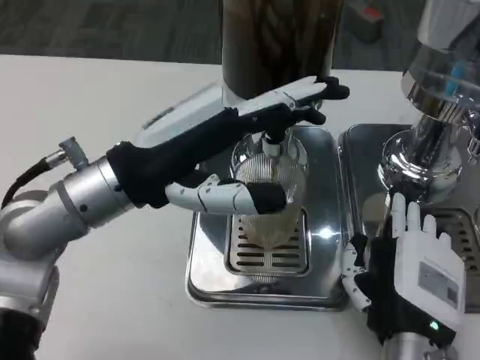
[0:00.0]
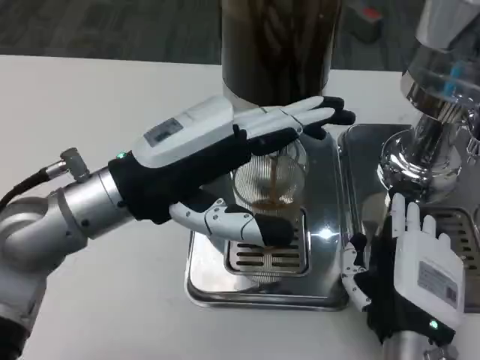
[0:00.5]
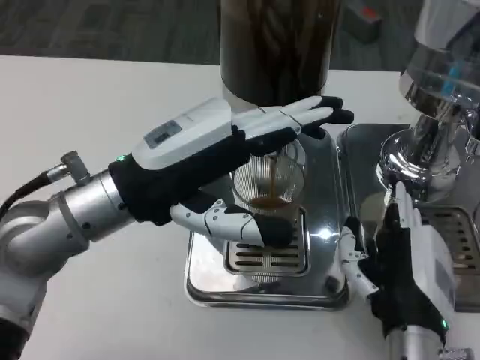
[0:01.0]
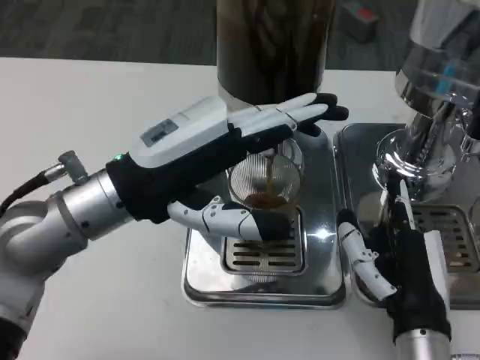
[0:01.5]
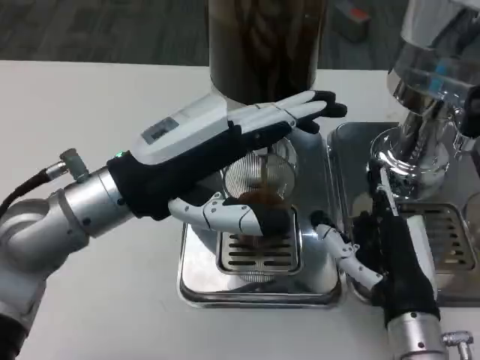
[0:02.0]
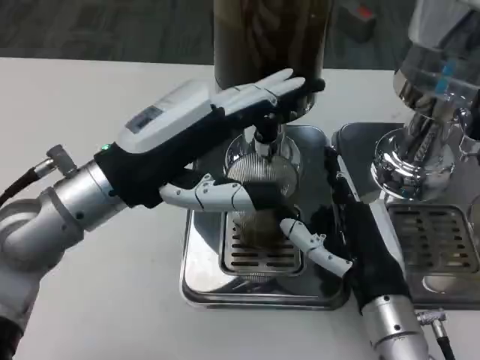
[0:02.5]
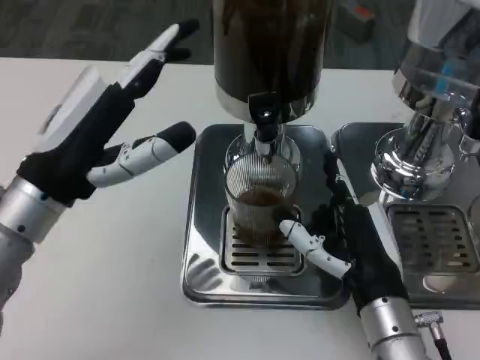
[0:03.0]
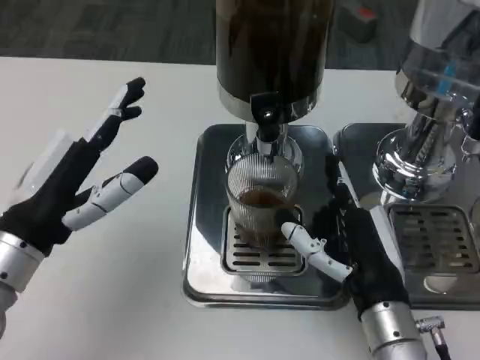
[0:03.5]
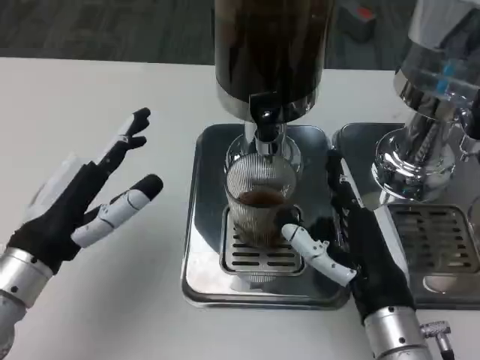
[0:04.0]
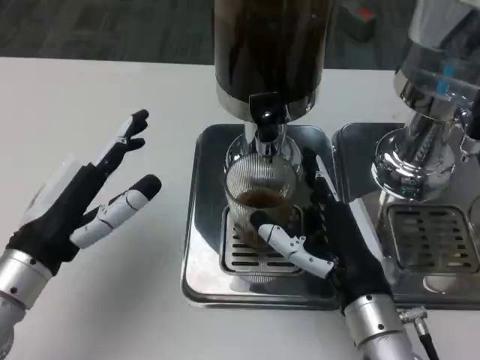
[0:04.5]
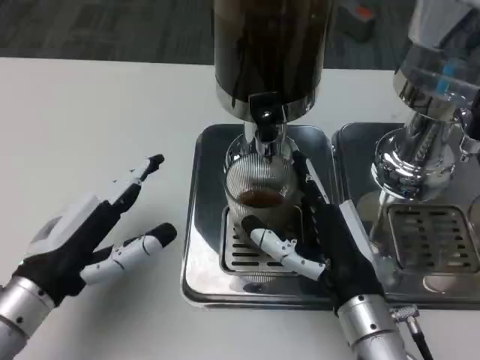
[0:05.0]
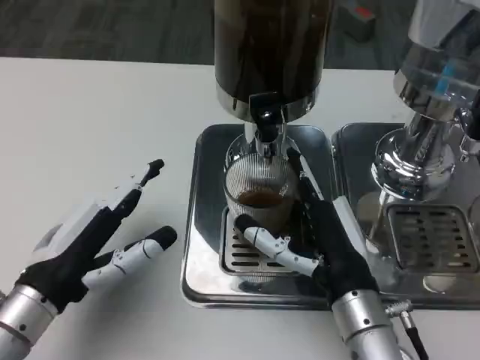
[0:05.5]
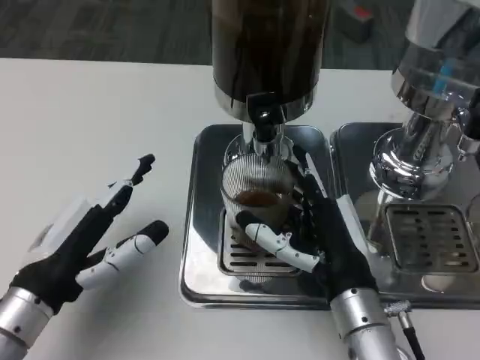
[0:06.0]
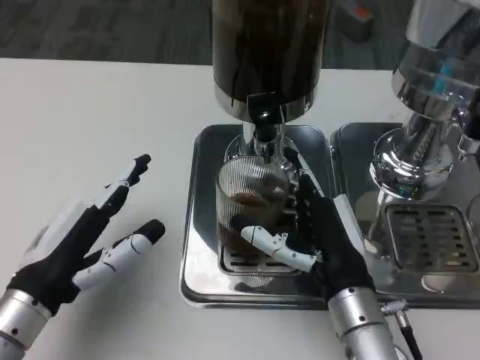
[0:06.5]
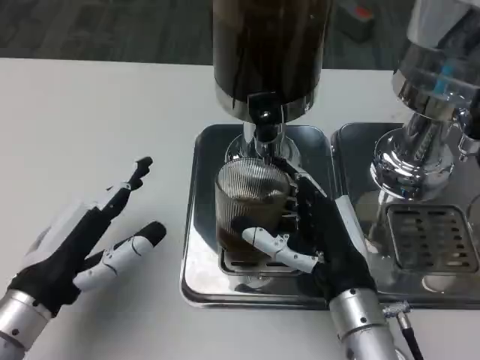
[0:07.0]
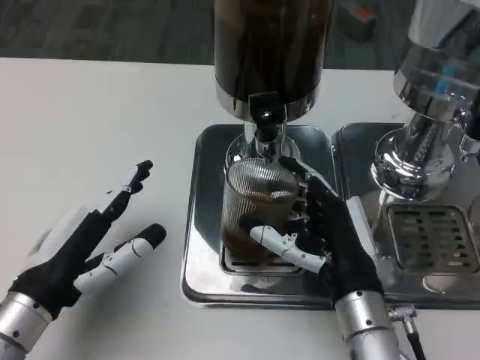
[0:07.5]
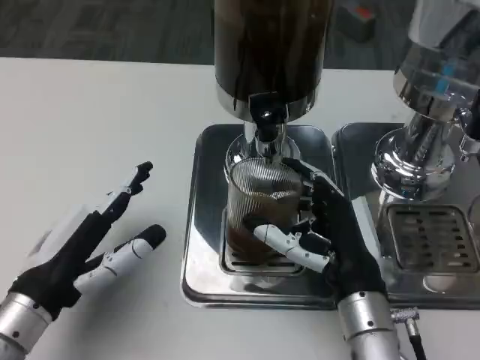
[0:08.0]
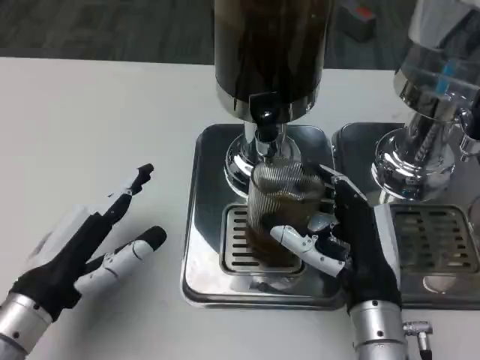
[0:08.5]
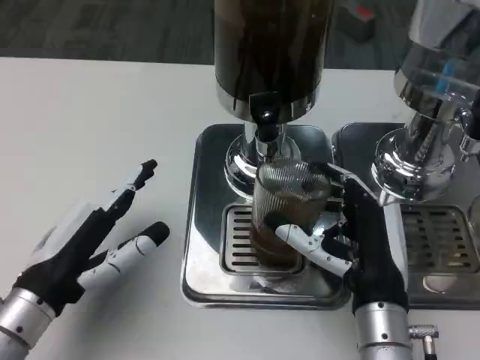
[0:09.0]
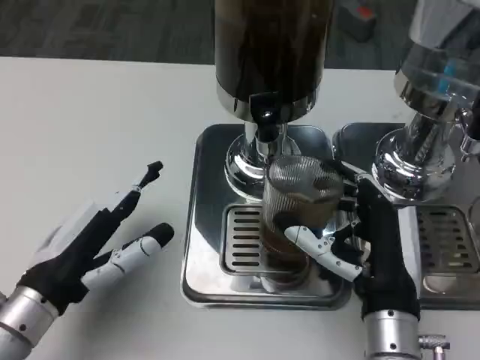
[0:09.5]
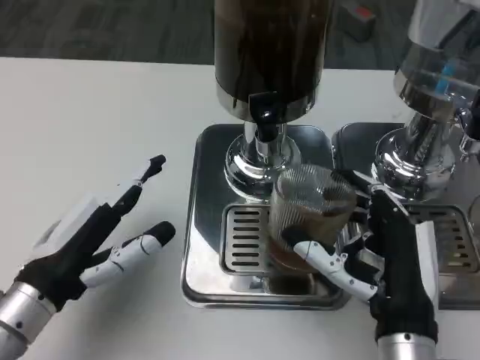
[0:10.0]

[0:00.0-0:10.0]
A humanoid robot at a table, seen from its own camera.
Task of the whole recording: Grasp the cup under the faucet to collect the drink, then remove the cup.
2.0 to 4.0 s: The left hand goes some 10 cm downward and to the left.
6.0 to 8.0 s: The hands stay close to where they were, moving slightly.
8.0 to 10.0 s: The right hand moves some 5 cm.

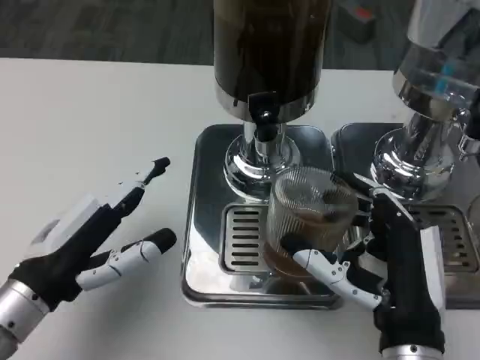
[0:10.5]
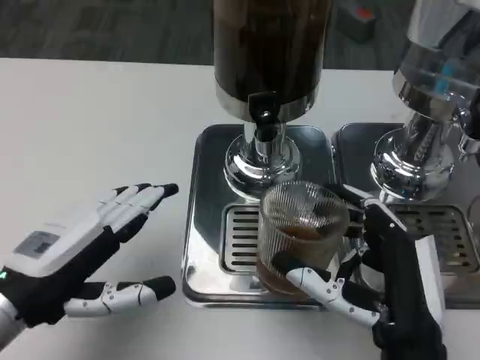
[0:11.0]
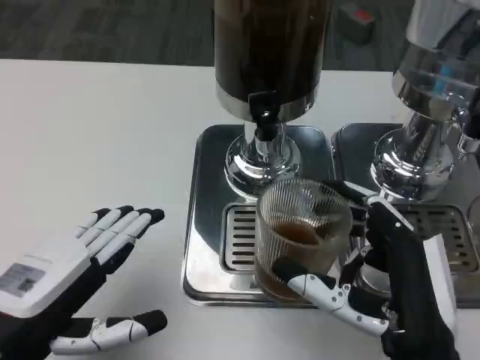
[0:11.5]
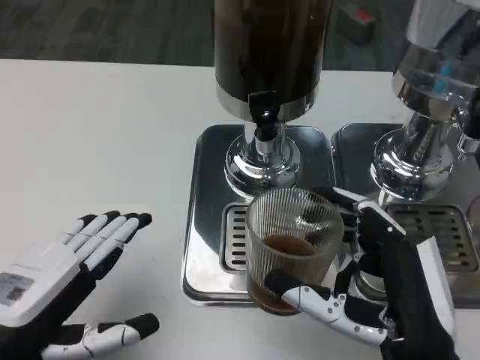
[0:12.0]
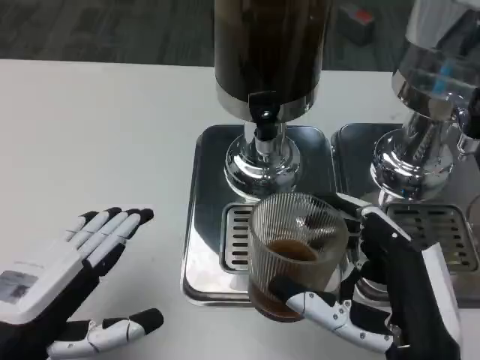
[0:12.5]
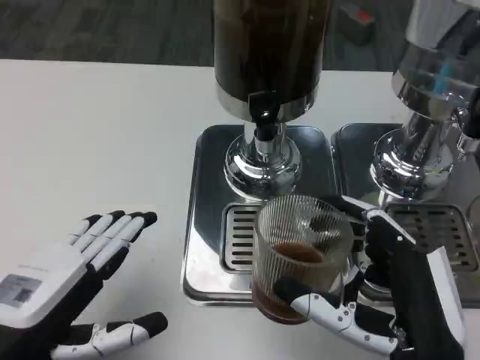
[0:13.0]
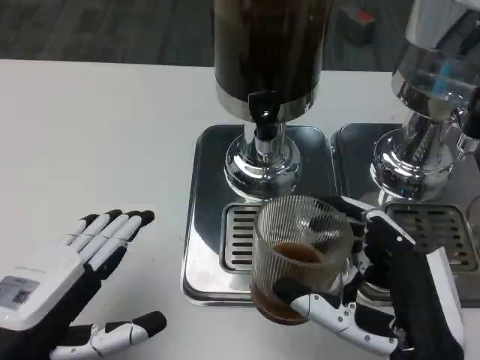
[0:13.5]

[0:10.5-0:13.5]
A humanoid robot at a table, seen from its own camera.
Task of the whole recording: Grasp the cup under the faucet to collect the drink, then remove the cup.
10.5 to 12.0 s: The left hand goes approximately 5 cm backward.
12.0 to 13.5 s: The two hands keep their place.

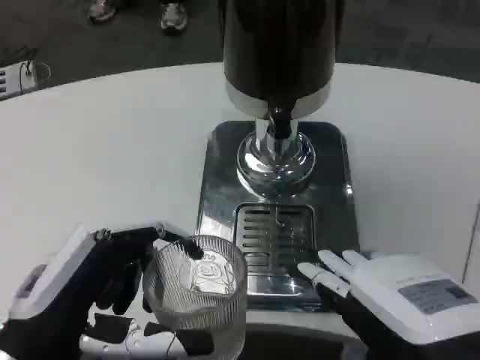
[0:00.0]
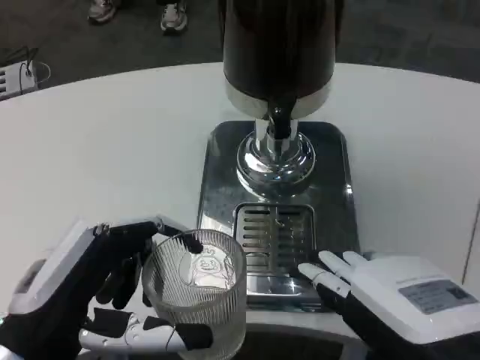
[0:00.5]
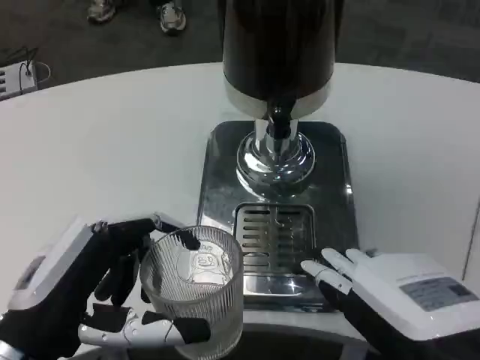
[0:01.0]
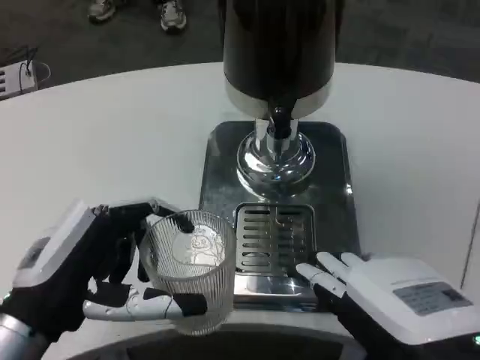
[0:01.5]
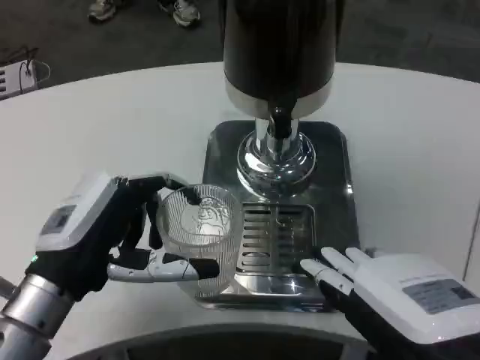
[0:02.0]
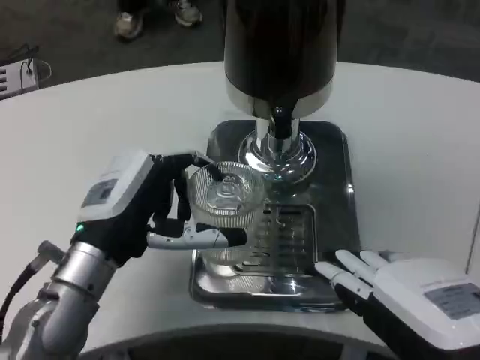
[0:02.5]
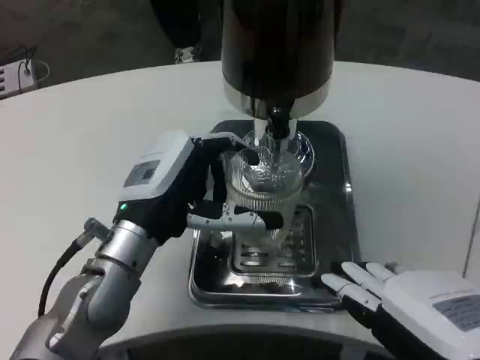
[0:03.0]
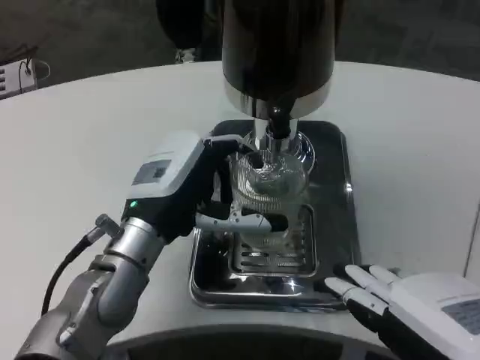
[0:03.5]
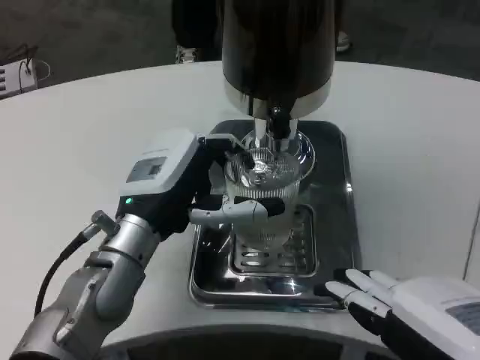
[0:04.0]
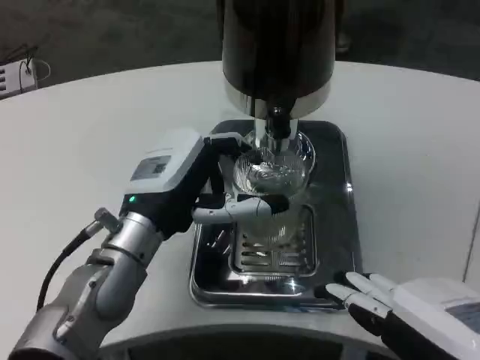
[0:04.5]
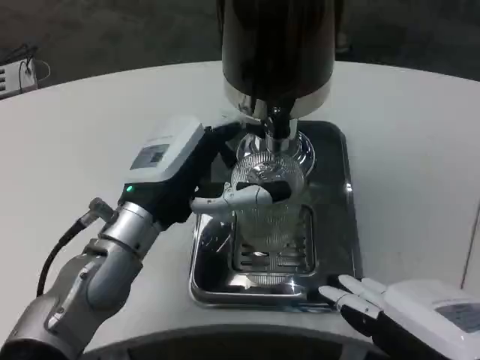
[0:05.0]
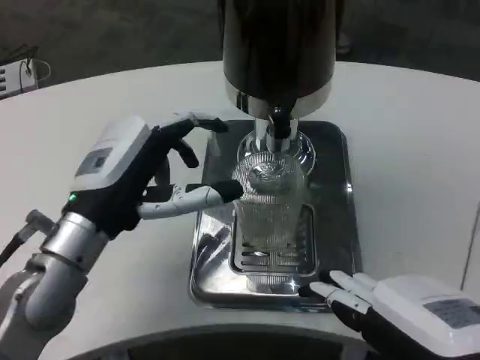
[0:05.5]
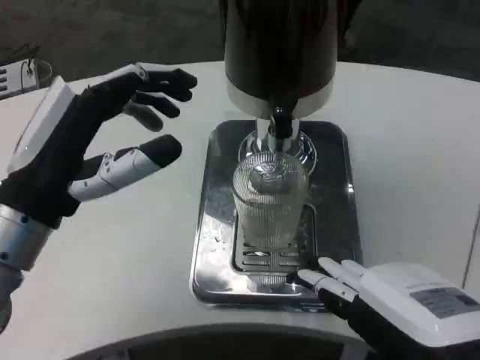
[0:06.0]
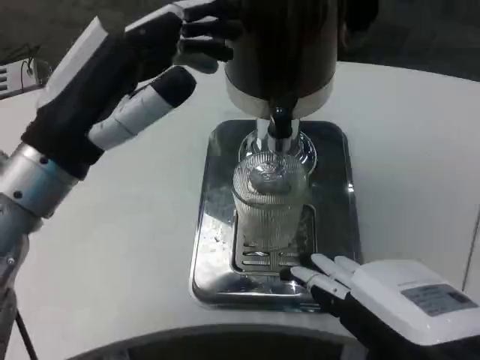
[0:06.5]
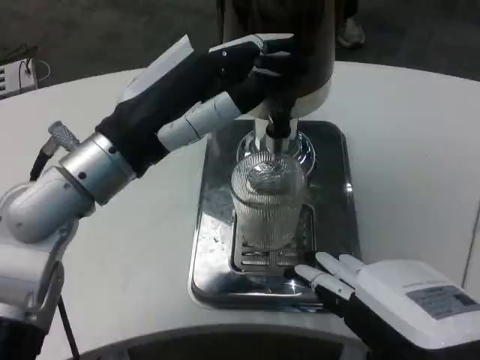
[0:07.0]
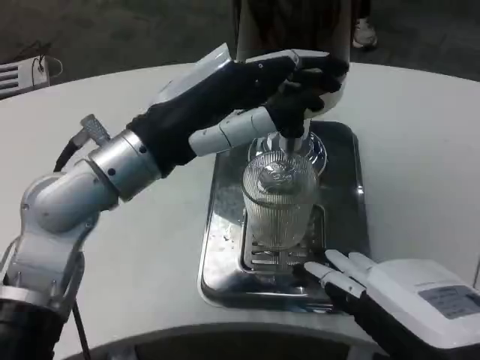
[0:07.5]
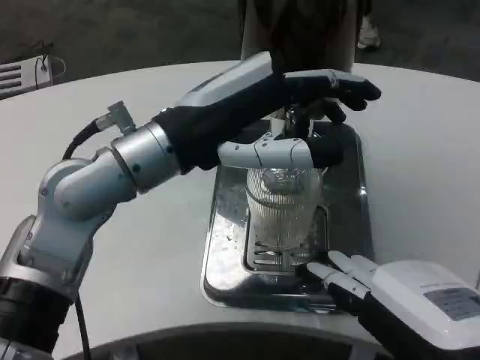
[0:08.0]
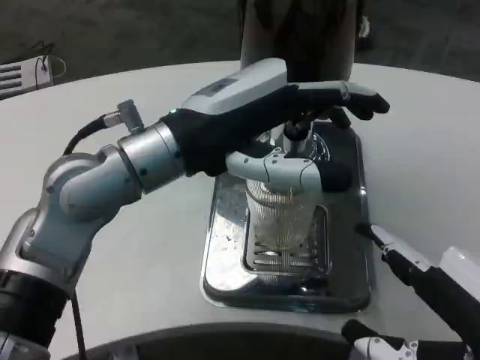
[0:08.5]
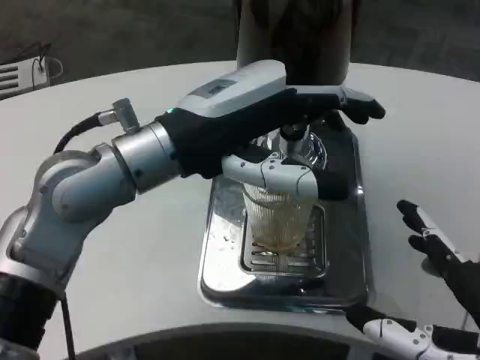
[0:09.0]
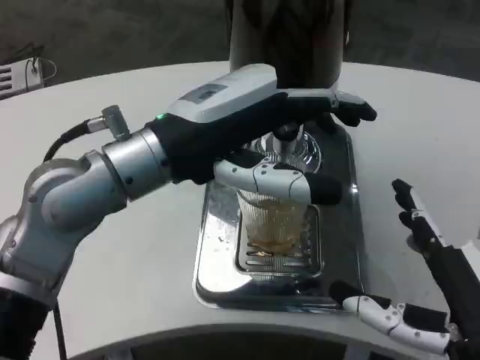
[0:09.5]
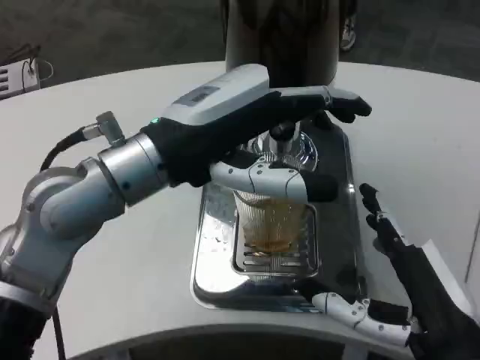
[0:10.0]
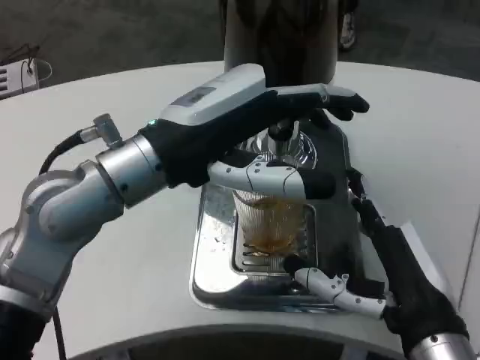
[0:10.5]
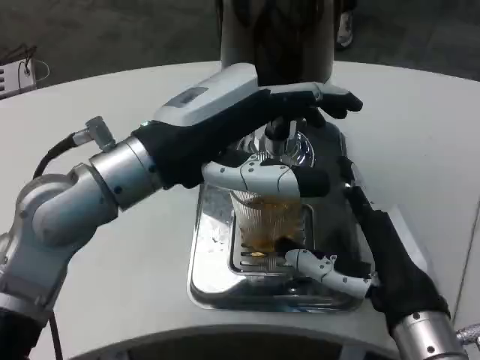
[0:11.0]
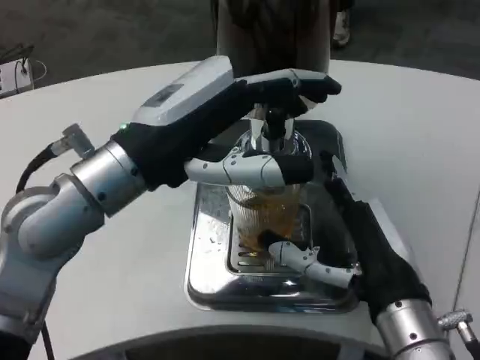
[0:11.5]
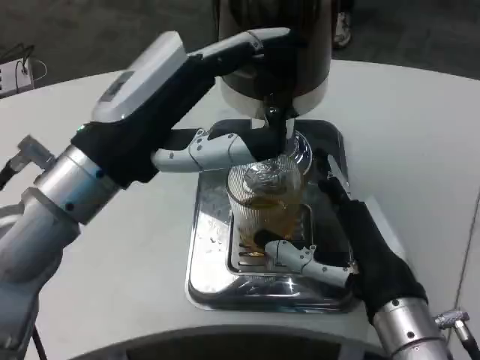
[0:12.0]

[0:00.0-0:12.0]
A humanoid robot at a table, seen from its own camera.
Task of the whole recording: Grasp the cup under the faucet to collect the drink, then remove the cup.
0.0 to 2.0 s: The left hand moves forward, some 5 cm.
2.0 to 4.0 s: The left hand moves to the right and forward, about 10 cm.
4.0 to 6.0 s: The left hand travels to the left, backward and upward by about 10 cm.
6.0 to 8.0 s: The left hand is displaced to the right, upward and forward by about 10 cm.
8.0 to 10.0 s: The right hand moves downward and forward, about 10 cm.
10.0 to 12.0 s: The right hand goes approximately 5 cm forward.

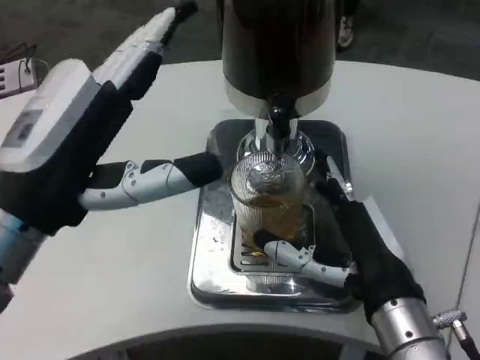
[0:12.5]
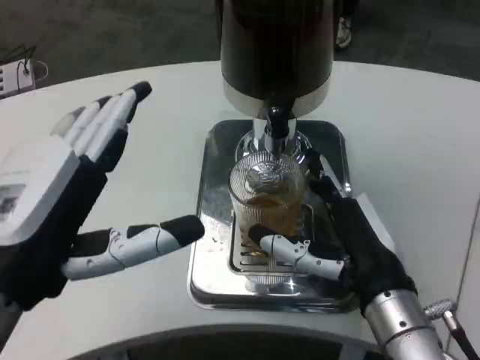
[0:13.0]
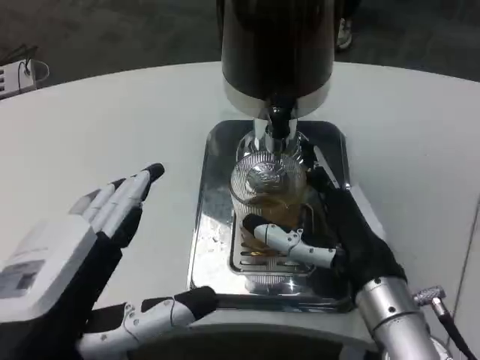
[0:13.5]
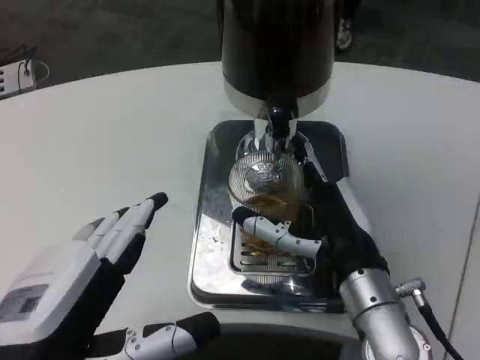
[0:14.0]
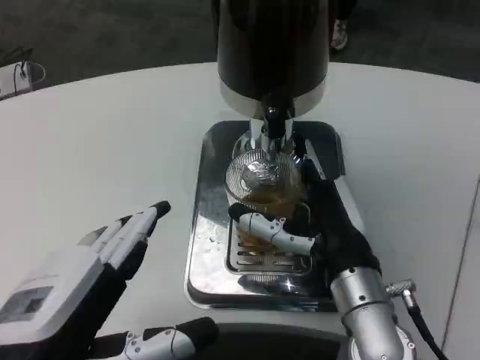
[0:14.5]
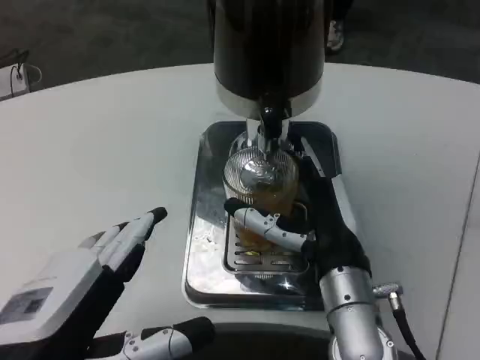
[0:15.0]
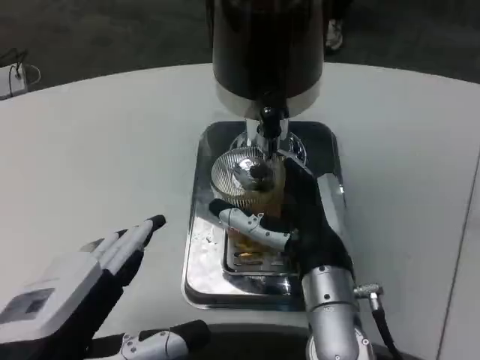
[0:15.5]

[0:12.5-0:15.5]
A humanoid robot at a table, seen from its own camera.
Task of the whole recording: Grasp the cup under the faucet to collect the drink, then remove the cup.
12.5 to 14.0 s: The left hand heads backward and downward, covering about 10 cm.
